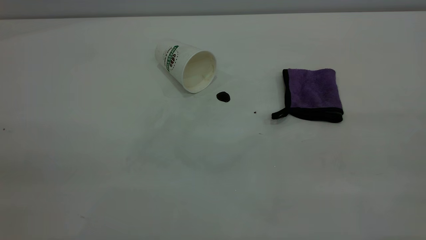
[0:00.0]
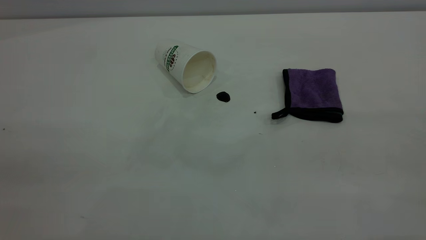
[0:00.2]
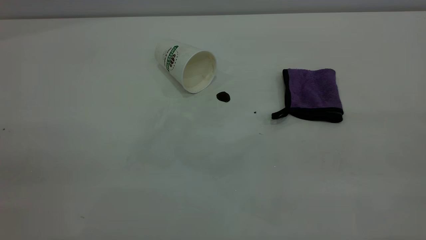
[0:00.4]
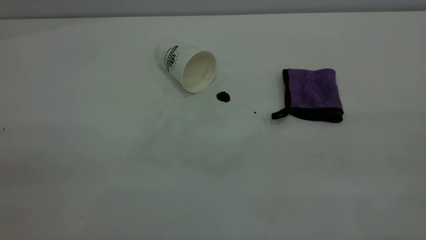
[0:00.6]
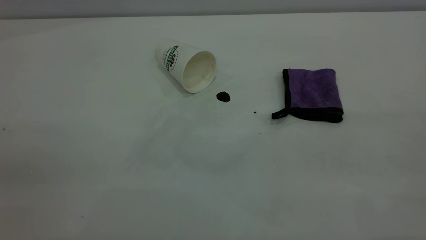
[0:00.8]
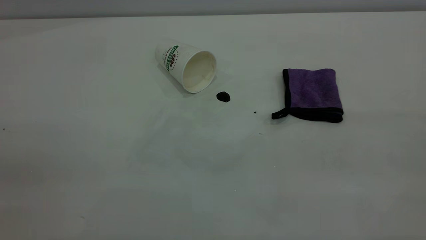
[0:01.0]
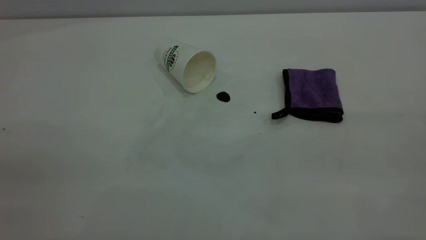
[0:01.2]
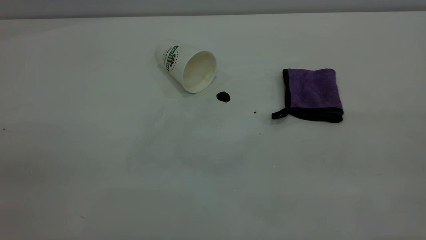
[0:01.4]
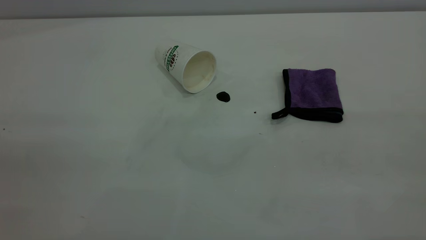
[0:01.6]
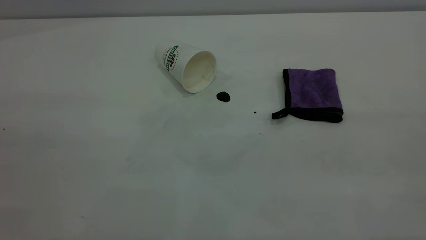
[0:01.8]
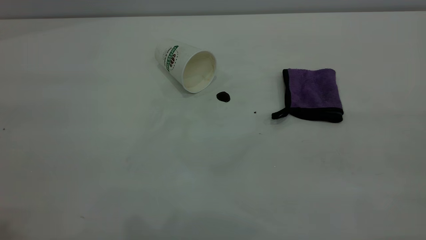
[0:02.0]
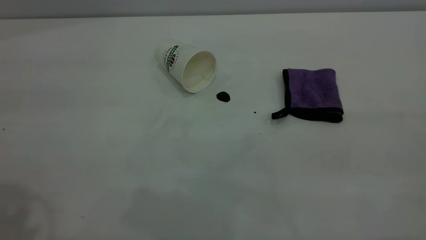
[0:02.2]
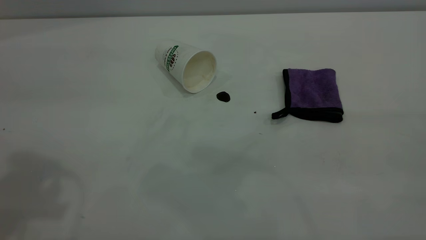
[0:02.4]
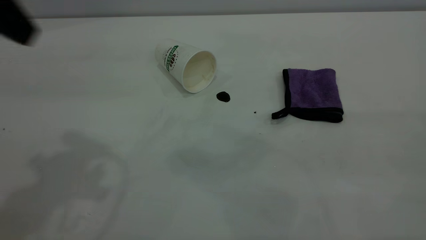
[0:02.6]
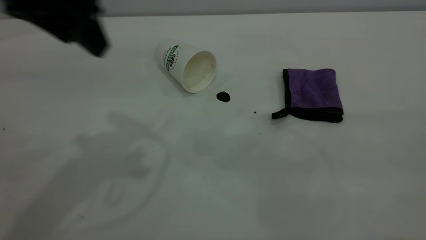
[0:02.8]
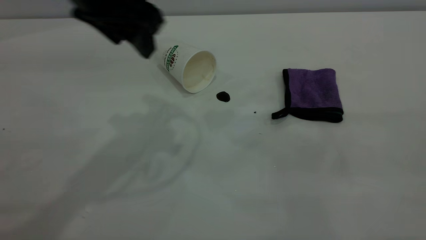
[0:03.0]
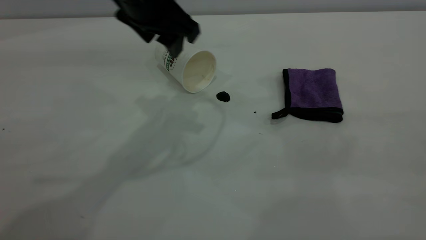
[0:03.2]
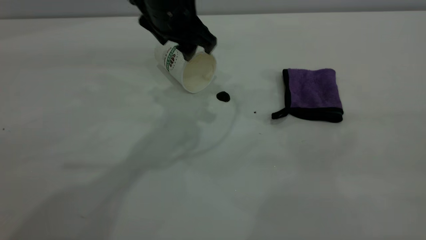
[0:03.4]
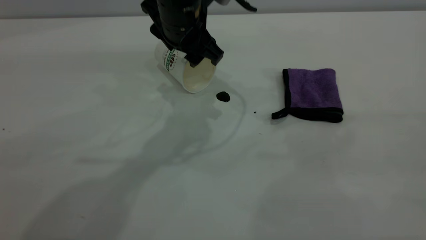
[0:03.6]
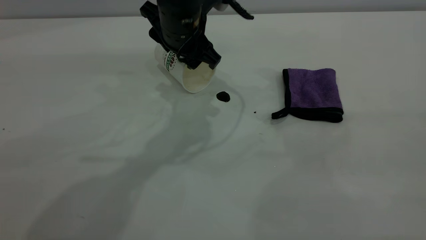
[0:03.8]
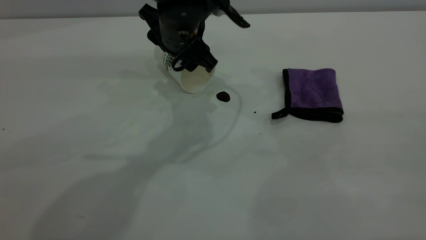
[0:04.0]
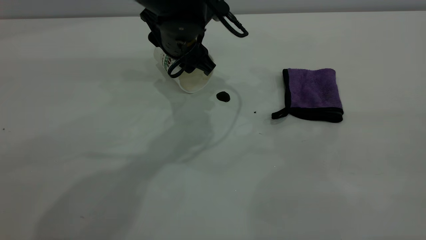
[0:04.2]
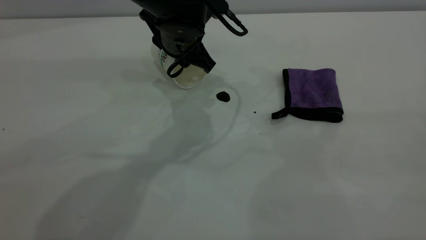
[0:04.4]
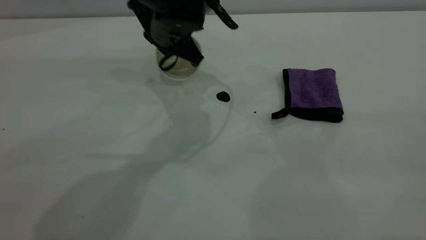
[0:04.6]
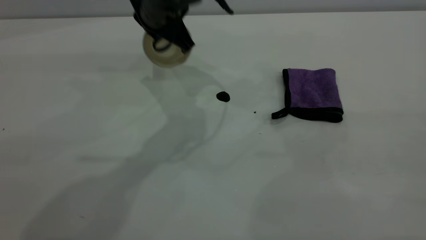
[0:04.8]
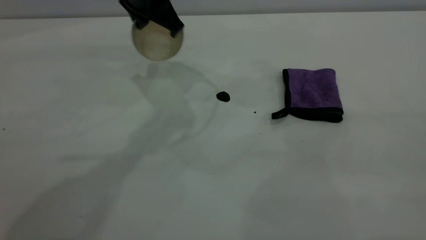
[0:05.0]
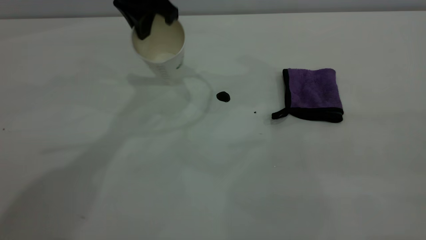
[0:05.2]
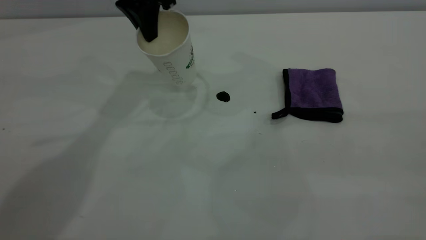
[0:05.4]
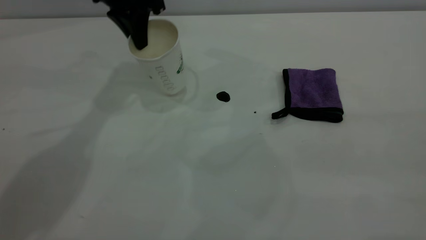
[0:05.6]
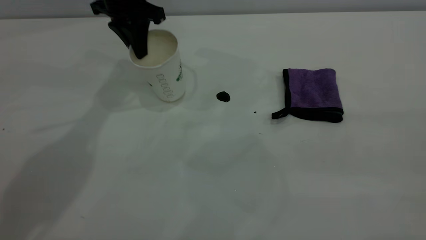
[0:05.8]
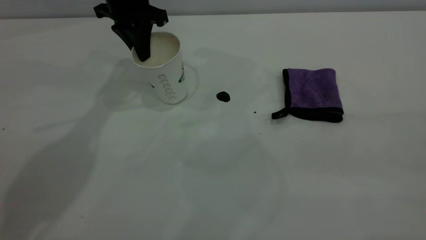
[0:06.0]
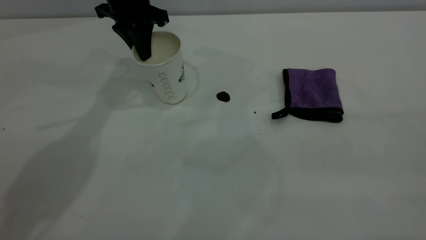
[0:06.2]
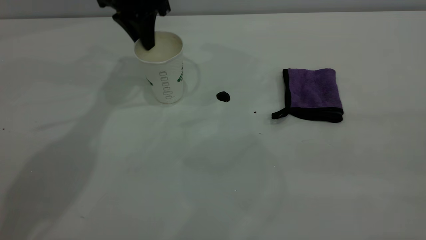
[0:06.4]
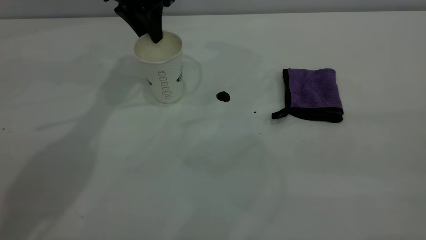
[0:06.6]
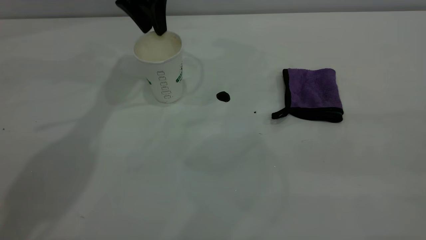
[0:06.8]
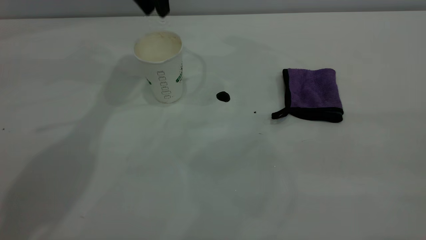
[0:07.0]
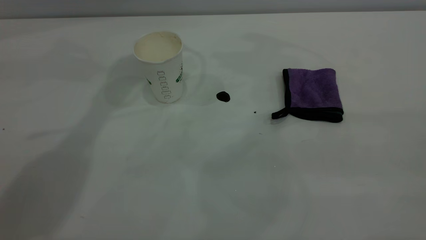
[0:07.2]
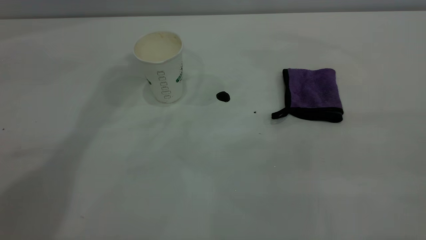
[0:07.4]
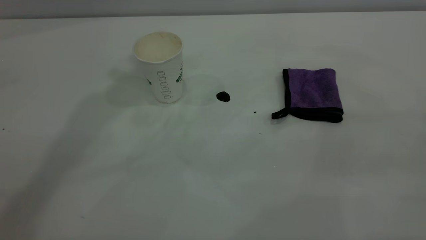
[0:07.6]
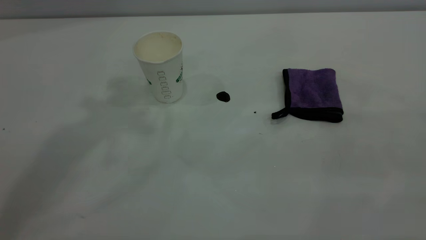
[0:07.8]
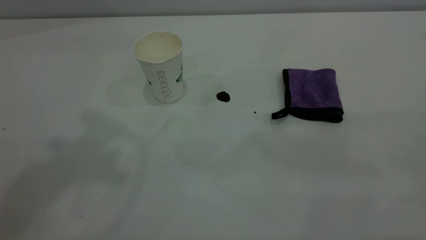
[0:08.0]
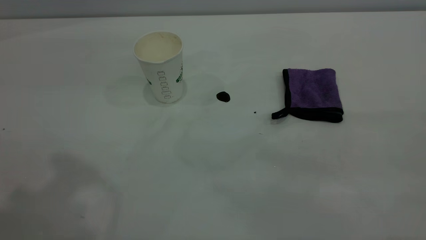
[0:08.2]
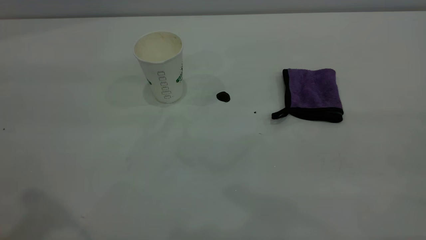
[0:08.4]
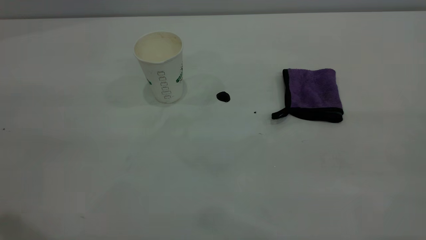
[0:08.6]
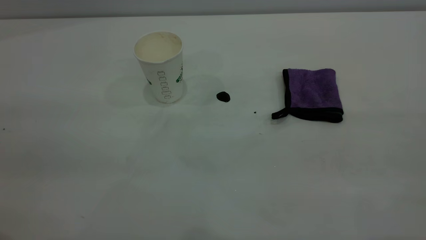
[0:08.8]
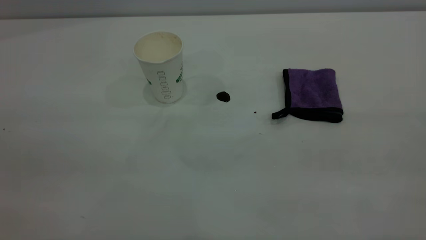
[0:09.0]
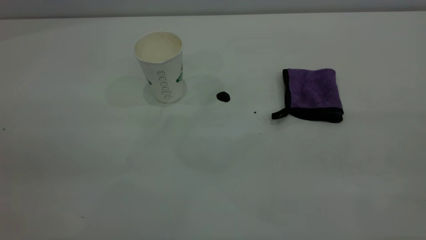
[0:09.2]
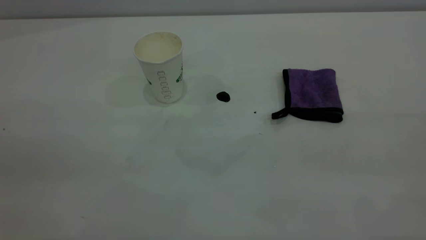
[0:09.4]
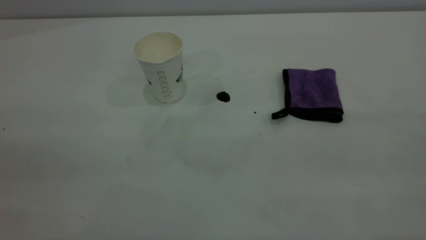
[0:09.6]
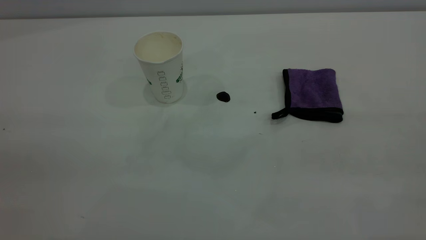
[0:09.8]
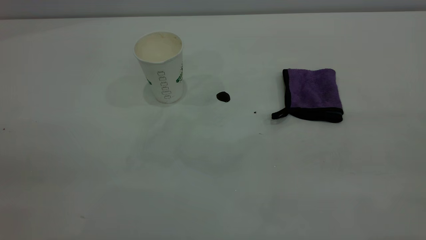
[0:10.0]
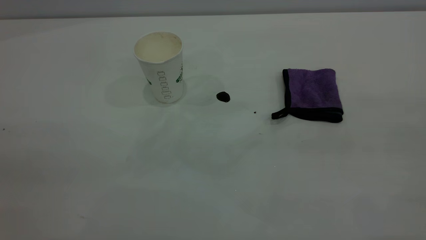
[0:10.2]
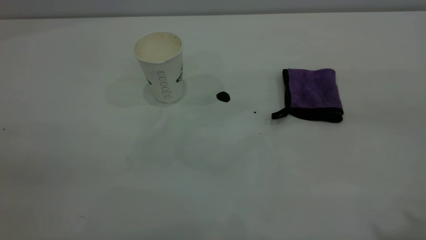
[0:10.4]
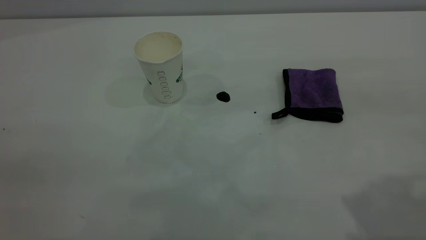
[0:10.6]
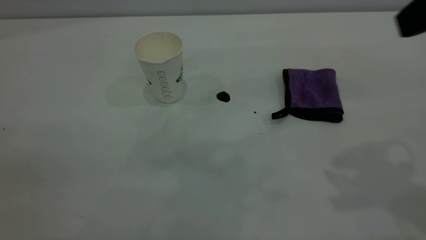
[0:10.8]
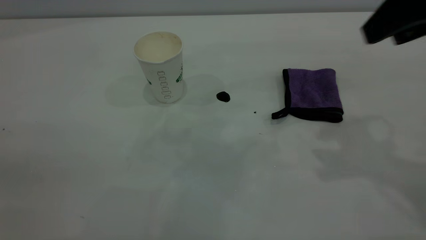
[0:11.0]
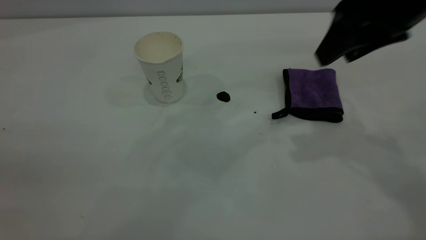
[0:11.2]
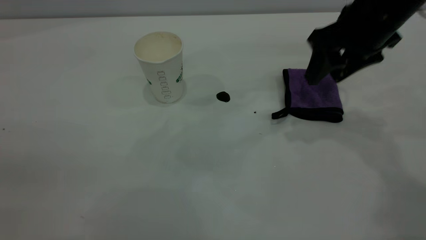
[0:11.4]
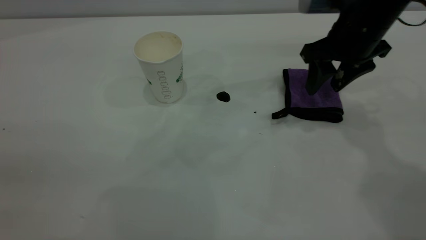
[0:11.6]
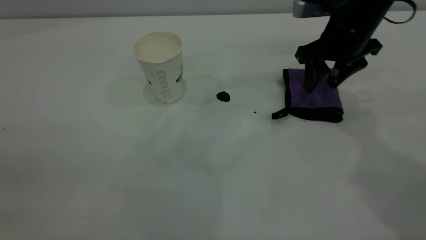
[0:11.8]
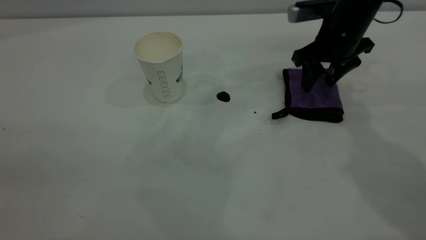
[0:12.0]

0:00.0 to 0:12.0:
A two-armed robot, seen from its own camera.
Task of the whole recording: the left gripper pick up the fallen cup and place it upright, the right gripper grasp the purple rag and wipe the coffee stain on the table, the right gripper put the purple rag back in its original position.
Step, 0:00.0 to 0:06.8: Stand the paper cup upright.
0:01.6 to 0:03.0: The left gripper shifts roughly 35 cm forward and to the right.
0:03.0 to 0:04.4: The left gripper moves downward, forward and to the right, about 15 cm, and closes up.
0:04.4 to 0:06.0: The left gripper shifts about 15 cm to the left, forward and upward, and closes.
0:06.0 to 0:07.6: The left gripper moves upward, approximately 35 cm, and opens.
0:10.4 to 0:12.0: The right gripper goes approximately 40 cm forward and downward.

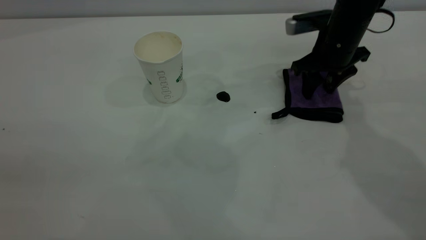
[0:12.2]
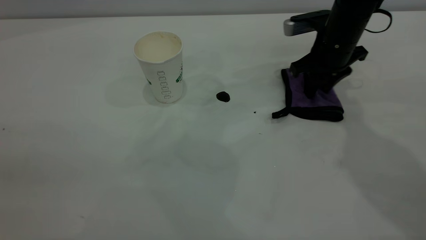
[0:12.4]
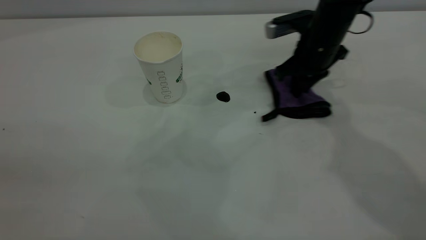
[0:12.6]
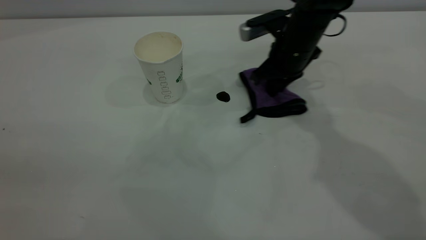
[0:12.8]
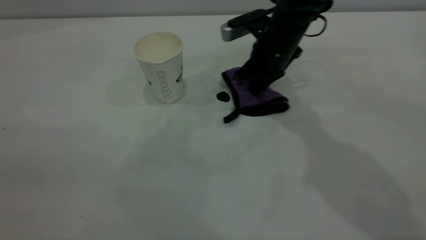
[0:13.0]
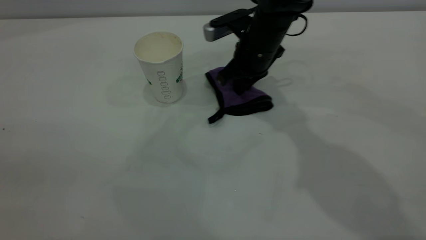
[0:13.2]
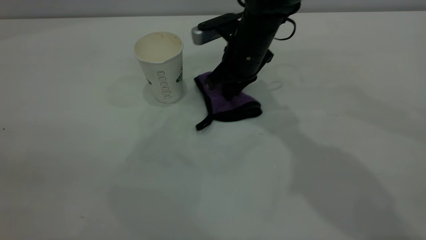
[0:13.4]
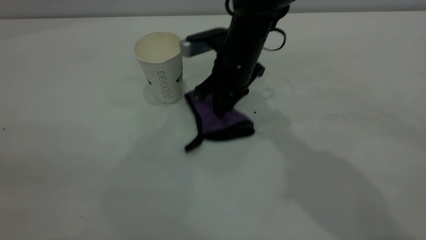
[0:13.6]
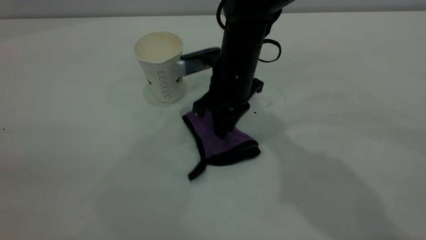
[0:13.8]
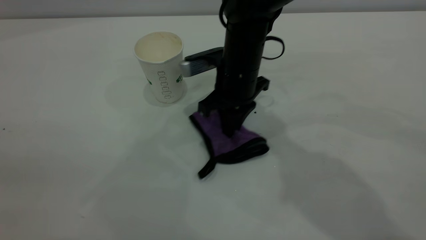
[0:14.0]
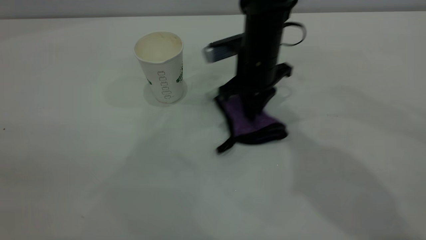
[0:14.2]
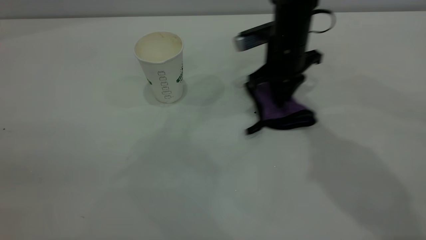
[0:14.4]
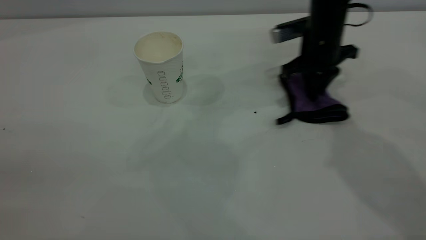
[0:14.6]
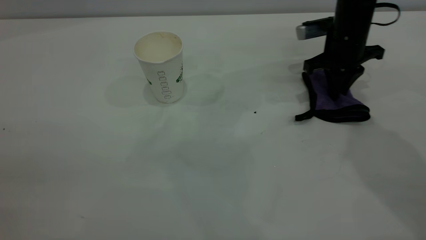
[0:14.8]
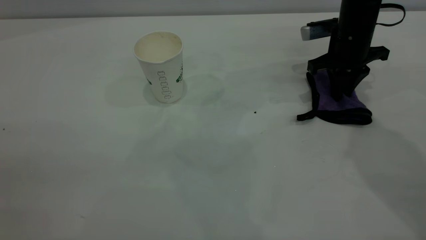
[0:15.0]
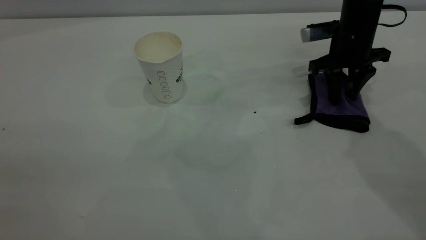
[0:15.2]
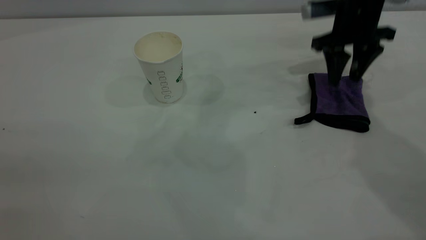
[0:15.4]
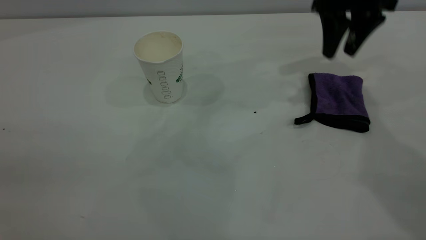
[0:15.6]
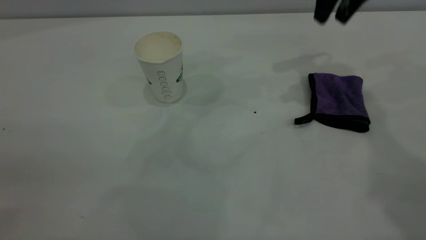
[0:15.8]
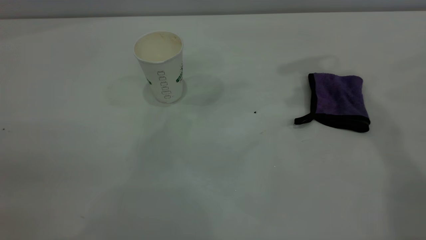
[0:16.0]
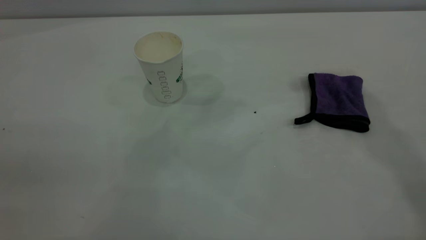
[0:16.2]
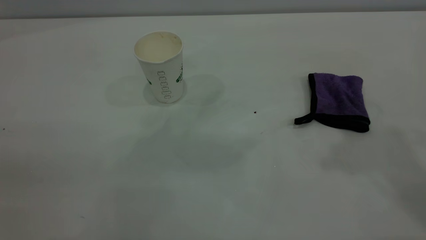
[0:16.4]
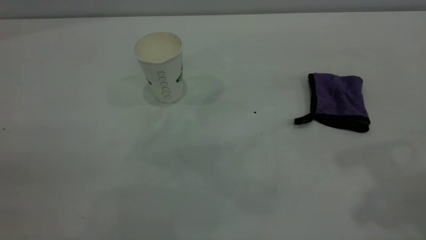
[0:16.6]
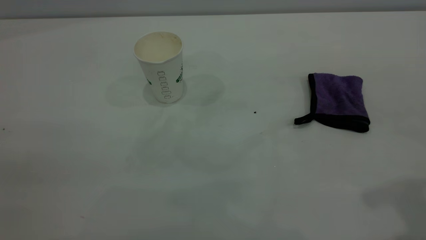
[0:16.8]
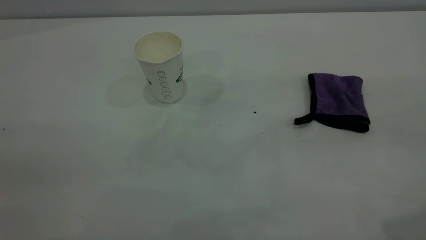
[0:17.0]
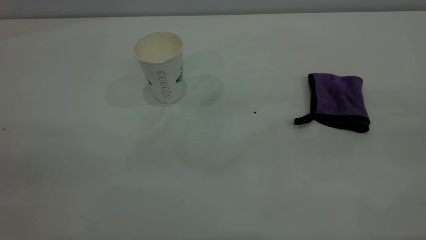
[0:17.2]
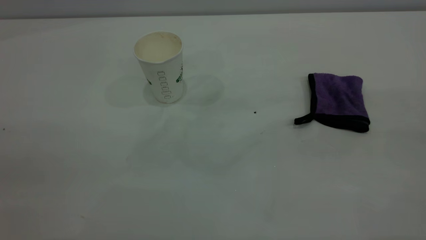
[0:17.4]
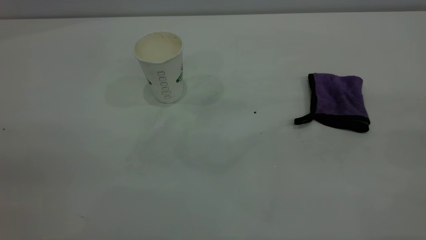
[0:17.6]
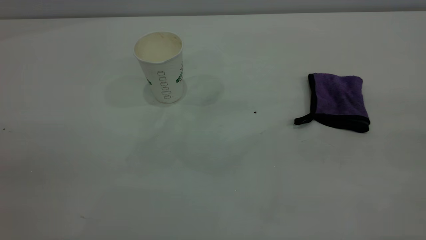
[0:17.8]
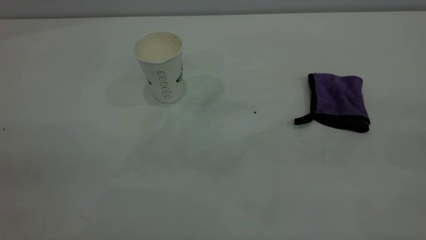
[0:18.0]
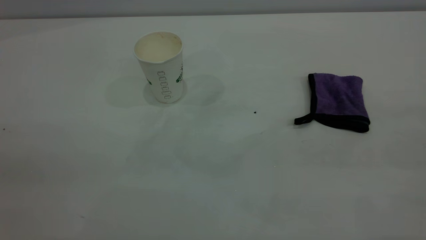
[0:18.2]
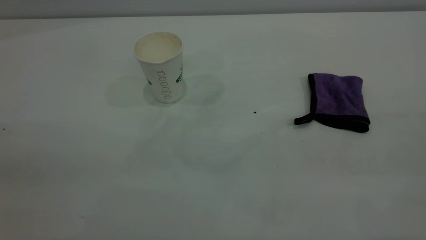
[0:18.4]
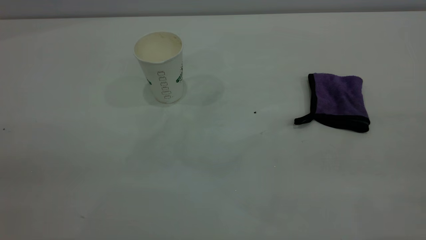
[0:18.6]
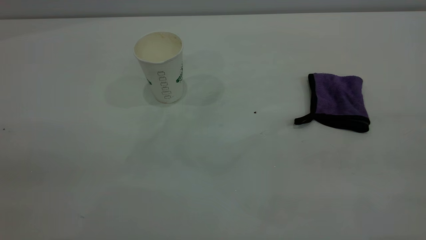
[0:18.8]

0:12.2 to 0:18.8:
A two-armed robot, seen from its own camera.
Task of the whole recording: the left gripper pick up the fallen cup and place it upright, the right gripper grasp the purple rag and wipe the coffee stain on the table, the right gripper put the purple rag back in its original position.
Step, 0:12.2 to 0:15.4: Wipe the stains off the table with a rag.
0:12.2 to 0:13.8: The right gripper moves to the left, some 15 cm, and closes up.
0:13.8 to 0:15.4: The right gripper shifts roughly 20 cm to the right, and opens its fingers.
0:15.4 to 0:17.2: The right gripper heads backward and upward, covering some 40 cm.
